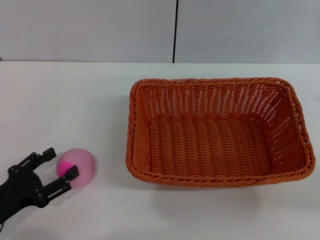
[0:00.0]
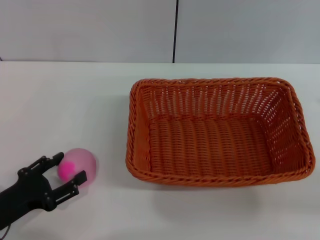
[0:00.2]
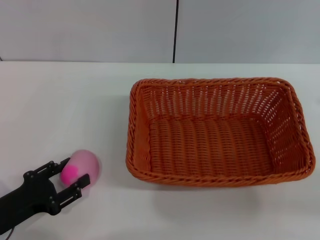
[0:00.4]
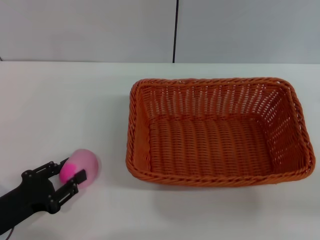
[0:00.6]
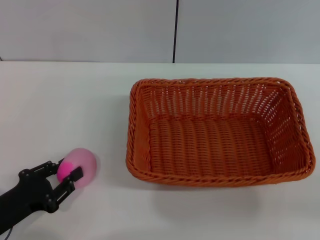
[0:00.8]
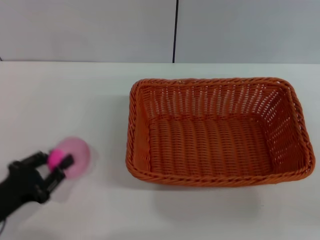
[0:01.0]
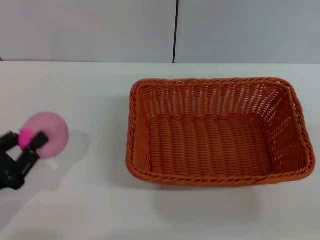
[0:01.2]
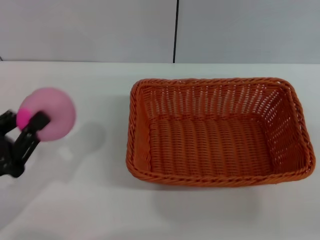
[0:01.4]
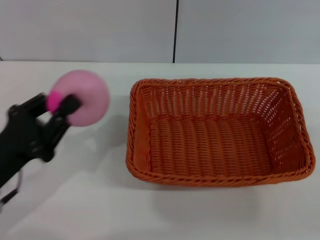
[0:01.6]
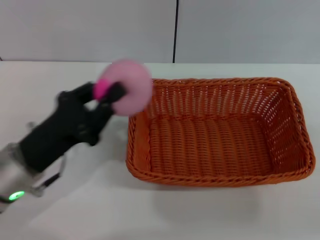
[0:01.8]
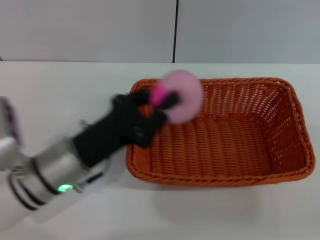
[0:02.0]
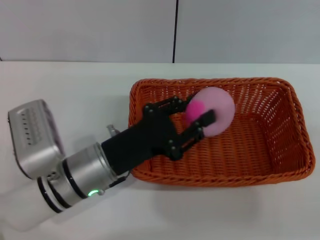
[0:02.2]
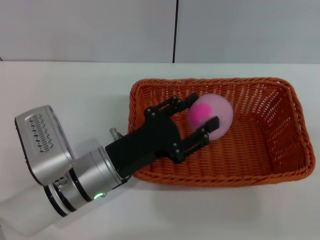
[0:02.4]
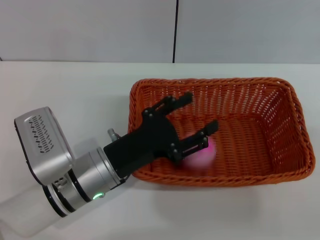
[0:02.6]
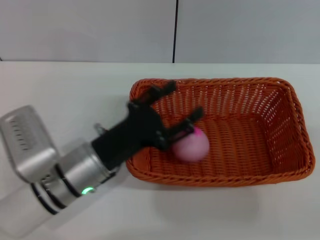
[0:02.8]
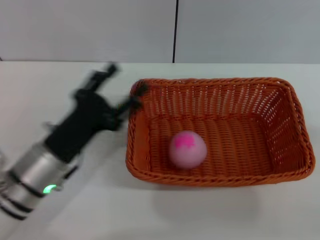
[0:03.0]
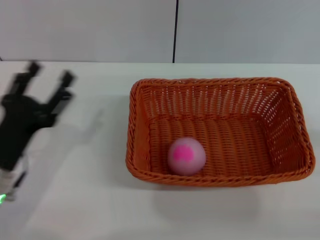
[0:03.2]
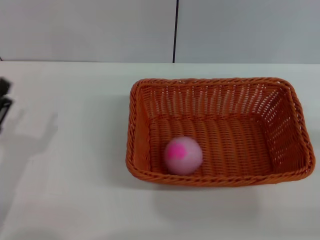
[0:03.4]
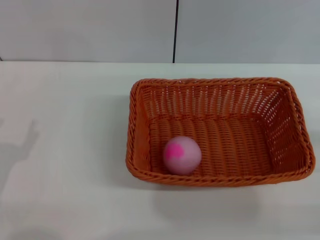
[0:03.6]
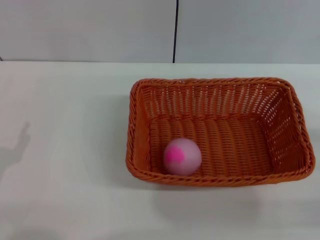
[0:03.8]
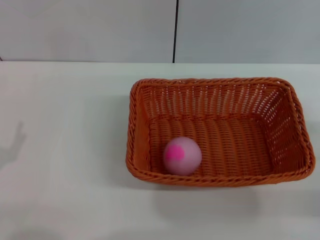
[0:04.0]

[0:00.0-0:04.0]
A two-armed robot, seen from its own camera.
Step, 0:01.2 to 0:02.8: Place the peach into the basket with the left gripper.
0:00.0 to 0:01.4: The left gripper goes about 5 cm upward, and closes up.
0:01.4 to 0:02.6: The left gripper travels to the right and forward by approximately 20 cm, and opens its fingers.
0:02.6 to 0:04.0: The right gripper is displaced downward by some 5 cm. Meanwhile the left gripper travels to the left and backward by approximately 20 cm.

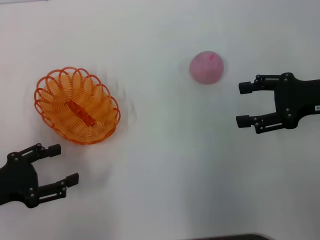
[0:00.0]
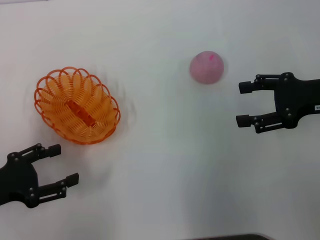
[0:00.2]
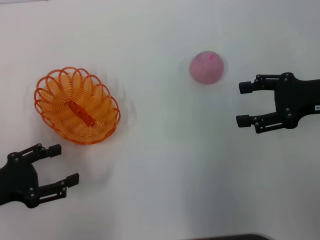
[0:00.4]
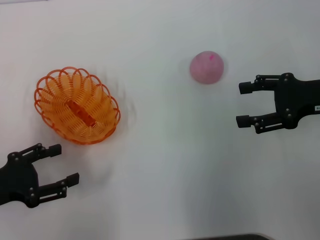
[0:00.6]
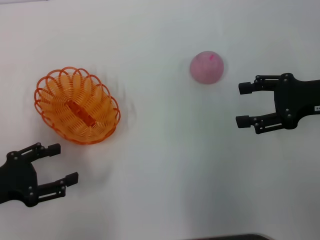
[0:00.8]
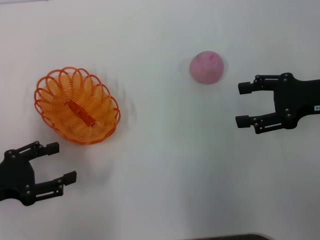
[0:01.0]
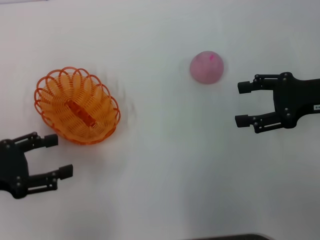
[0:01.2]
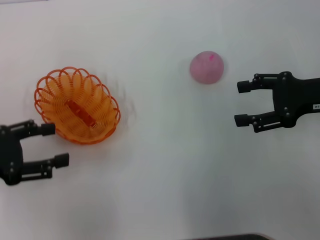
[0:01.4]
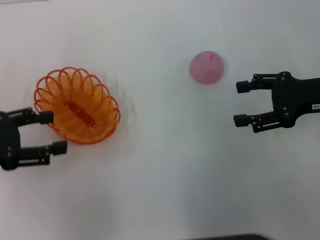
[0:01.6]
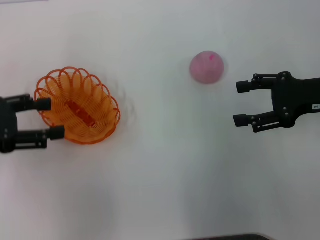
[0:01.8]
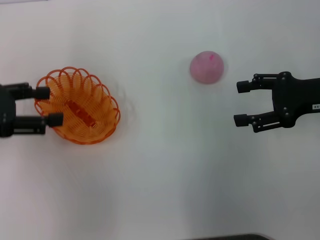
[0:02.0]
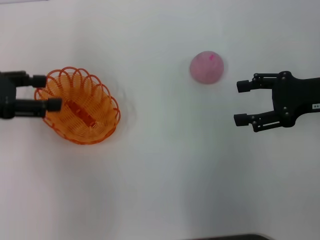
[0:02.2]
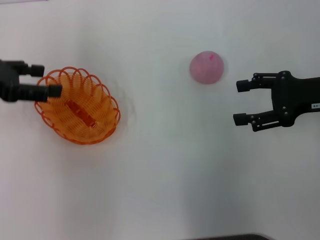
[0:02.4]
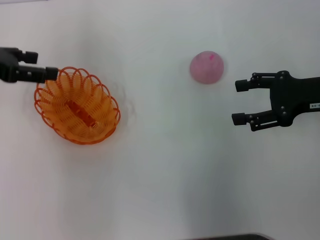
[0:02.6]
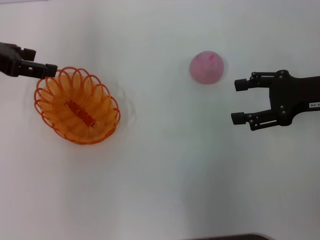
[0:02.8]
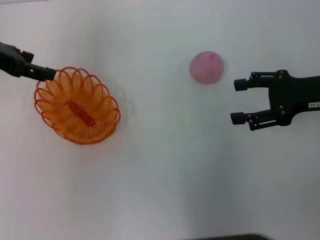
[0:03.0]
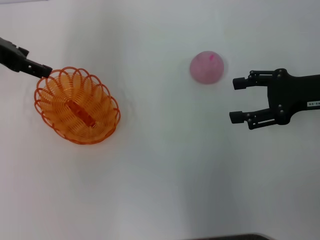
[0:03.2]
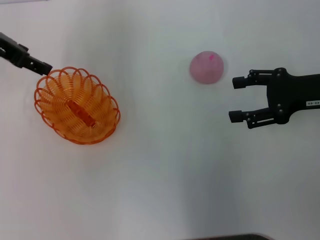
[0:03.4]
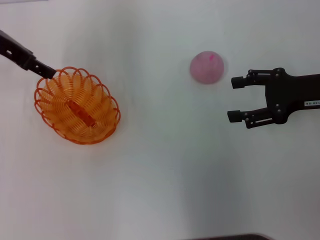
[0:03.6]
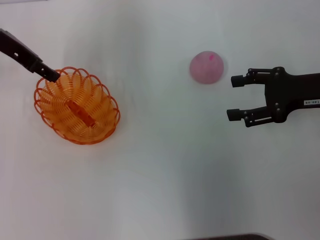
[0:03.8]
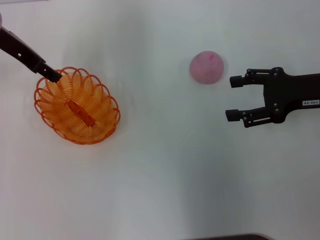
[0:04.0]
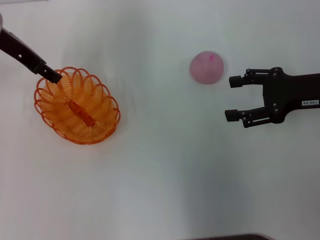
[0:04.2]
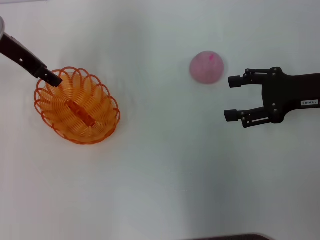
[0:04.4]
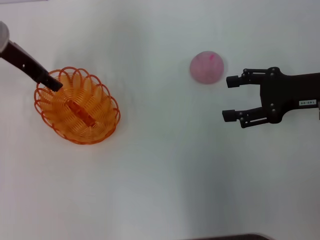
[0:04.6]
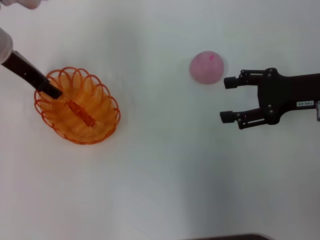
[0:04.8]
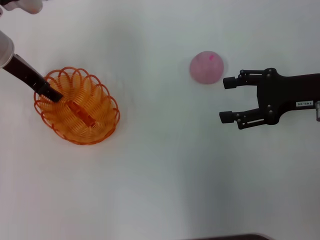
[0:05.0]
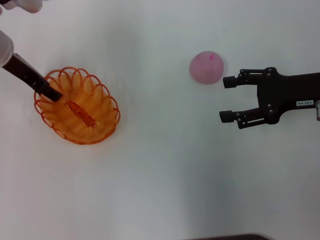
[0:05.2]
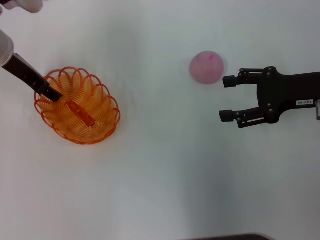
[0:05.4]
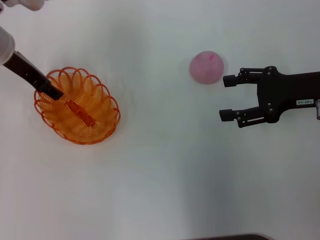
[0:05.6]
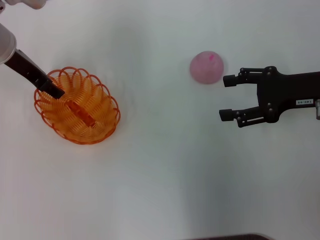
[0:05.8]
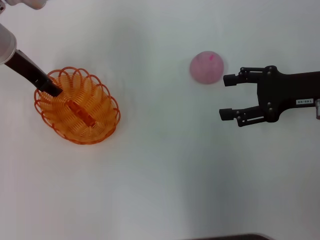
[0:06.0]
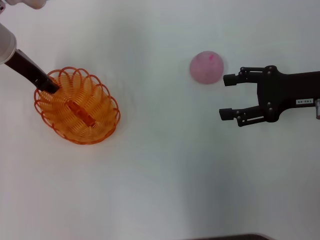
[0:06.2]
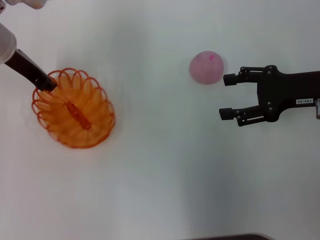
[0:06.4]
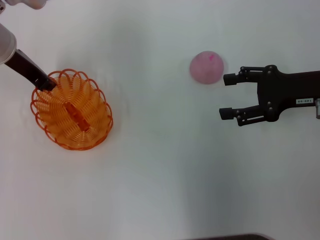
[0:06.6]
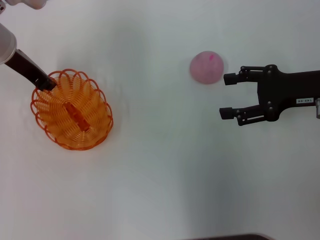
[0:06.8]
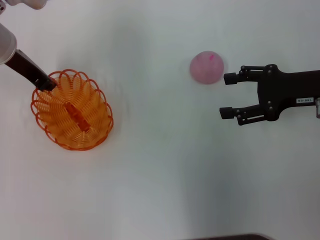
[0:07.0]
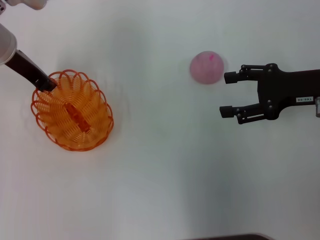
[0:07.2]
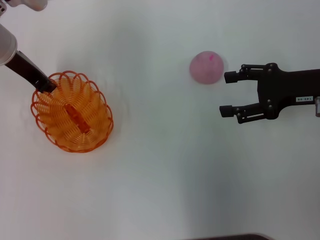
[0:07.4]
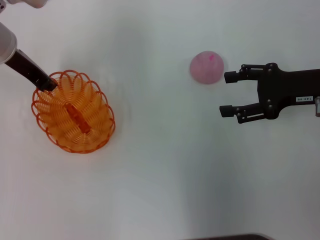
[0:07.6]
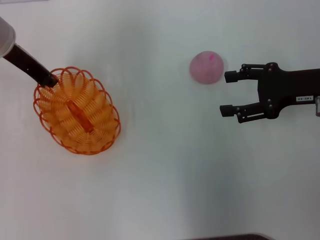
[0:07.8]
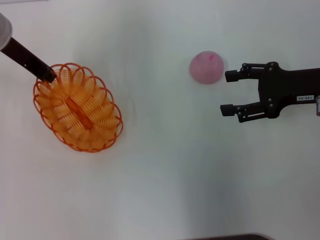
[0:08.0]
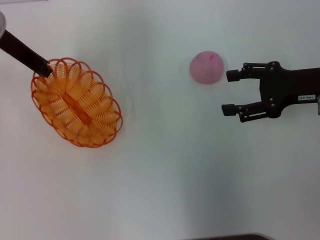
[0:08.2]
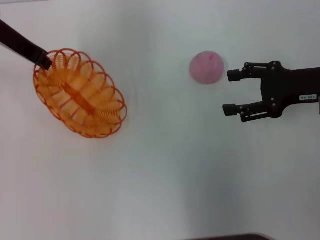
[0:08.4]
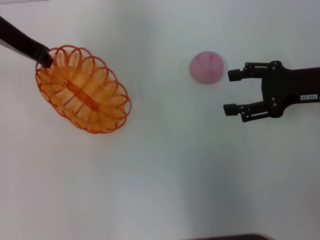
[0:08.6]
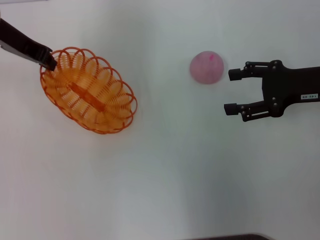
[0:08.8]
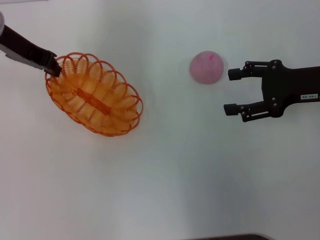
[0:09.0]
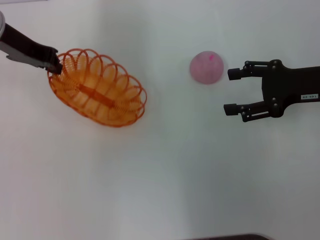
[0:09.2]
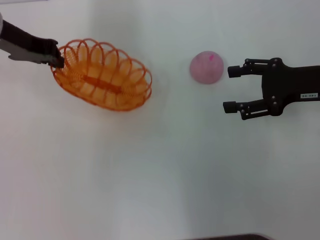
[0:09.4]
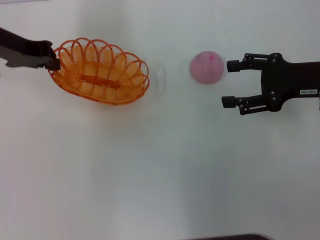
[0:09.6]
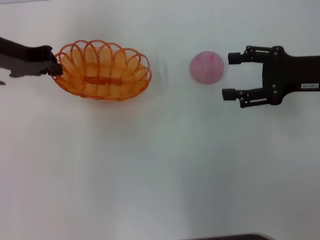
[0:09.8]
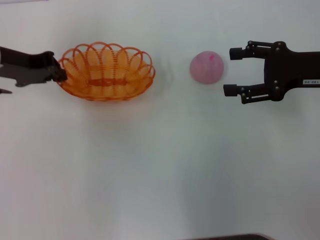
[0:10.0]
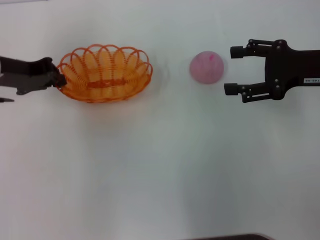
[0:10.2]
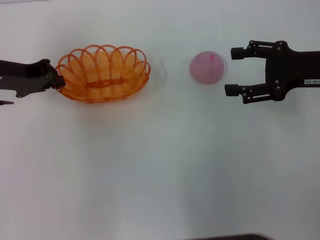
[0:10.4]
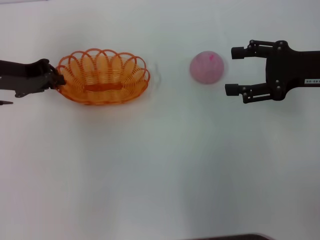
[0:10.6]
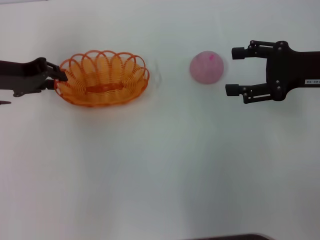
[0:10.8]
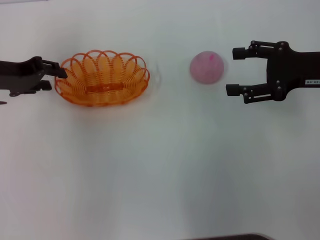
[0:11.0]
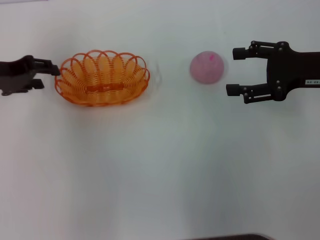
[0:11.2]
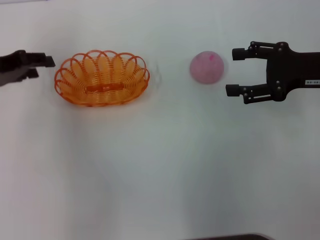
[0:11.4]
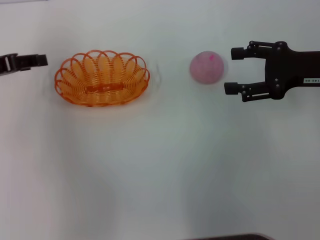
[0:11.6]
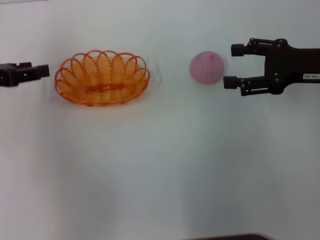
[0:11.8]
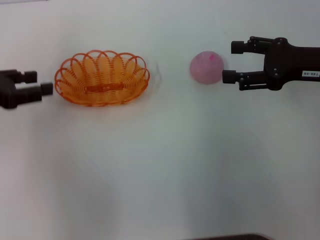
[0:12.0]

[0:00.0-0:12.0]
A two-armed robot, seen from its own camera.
Step, 0:00.0 to 0:08.6: Pick up the basket with the left gripper.
Step, 0:08.8 to 0:11.0: Place the basket in the center of view with the left gripper.
0:00.0 to 0:01.6: The left gripper is displaced upward by some 10 cm.
0:01.6 to 0:03.0: The left gripper goes about 15 cm forward and upward.
0:03.0 to 0:04.4: The left gripper goes roughly 5 cm to the right.
0:04.4 to 0:06.0: The grippers stay close to where they were, moving slightly.
0:06.0 to 0:07.6: The left gripper closes up.
0:09.0 to 0:10.4: The left gripper is displaced downward by approximately 5 cm.
0:10.4 to 0:12.0: The left gripper heads backward and to the left, covering some 10 cm, and opens up.

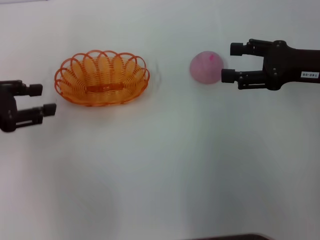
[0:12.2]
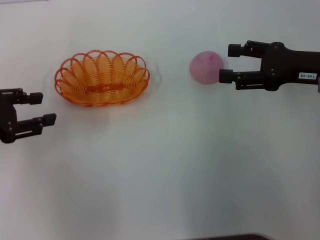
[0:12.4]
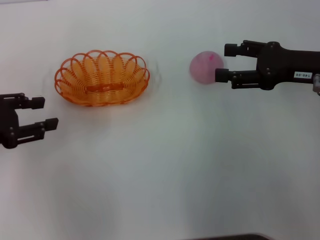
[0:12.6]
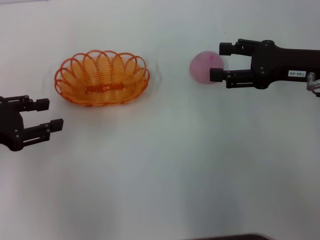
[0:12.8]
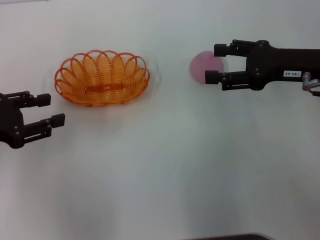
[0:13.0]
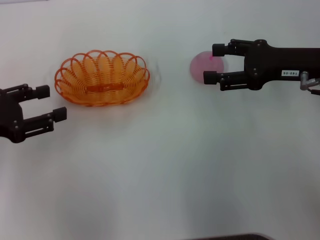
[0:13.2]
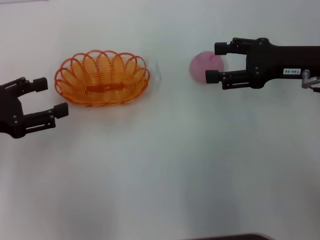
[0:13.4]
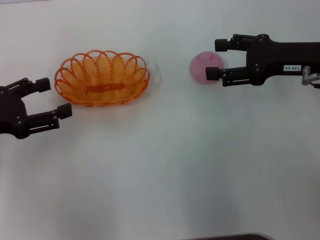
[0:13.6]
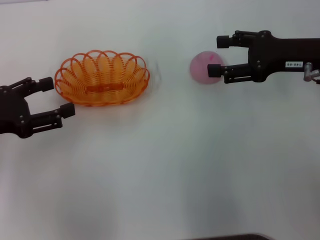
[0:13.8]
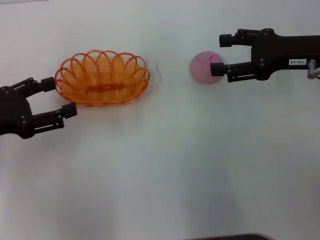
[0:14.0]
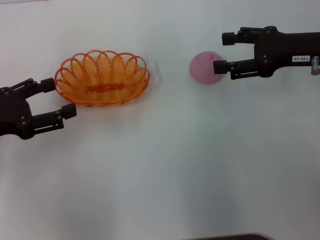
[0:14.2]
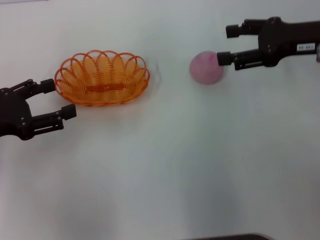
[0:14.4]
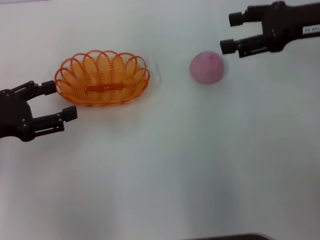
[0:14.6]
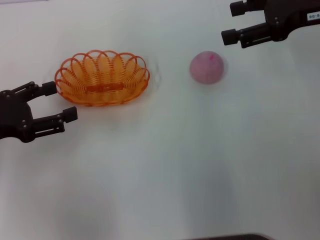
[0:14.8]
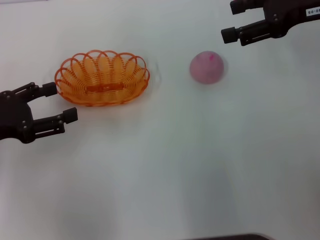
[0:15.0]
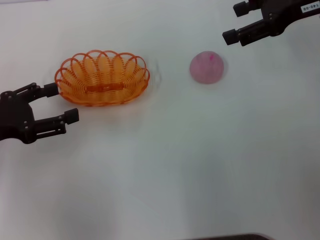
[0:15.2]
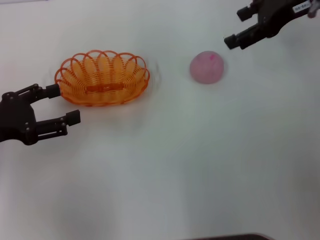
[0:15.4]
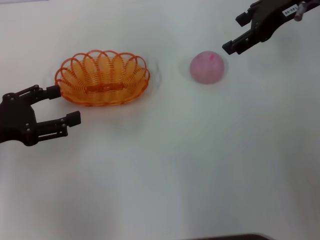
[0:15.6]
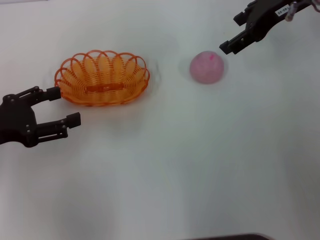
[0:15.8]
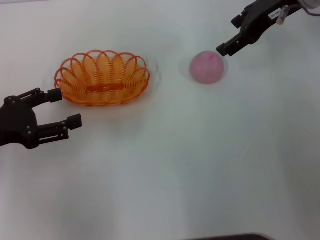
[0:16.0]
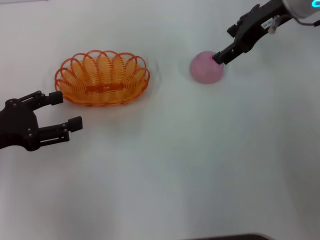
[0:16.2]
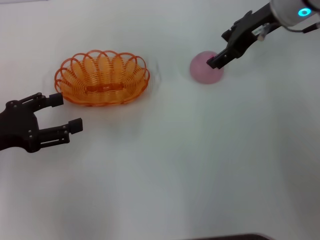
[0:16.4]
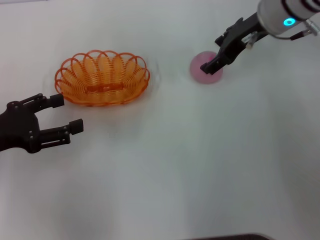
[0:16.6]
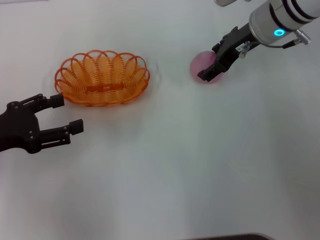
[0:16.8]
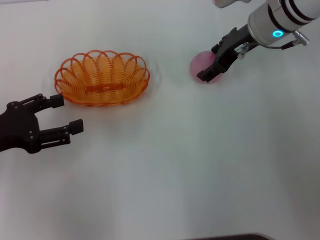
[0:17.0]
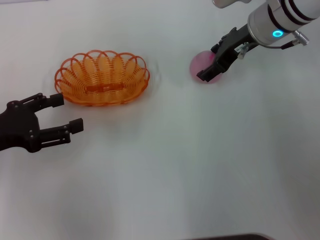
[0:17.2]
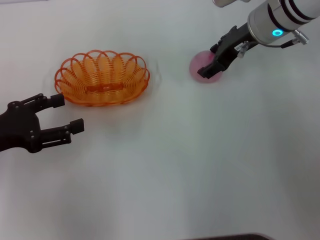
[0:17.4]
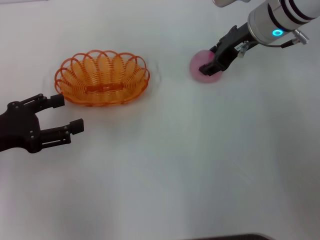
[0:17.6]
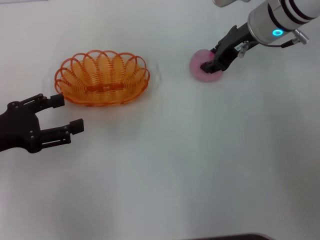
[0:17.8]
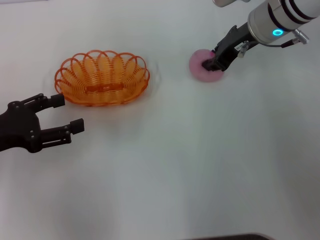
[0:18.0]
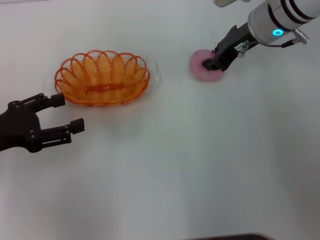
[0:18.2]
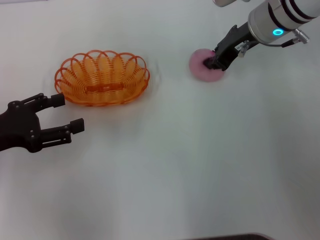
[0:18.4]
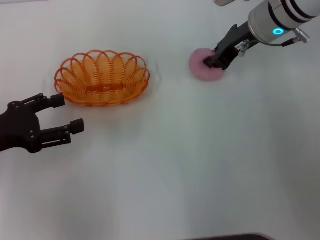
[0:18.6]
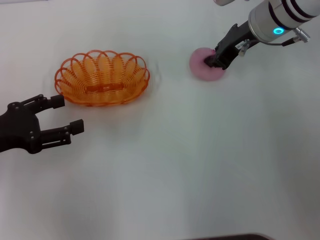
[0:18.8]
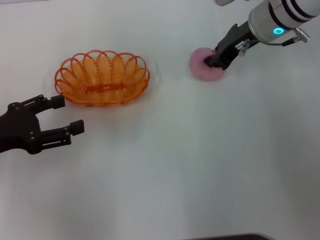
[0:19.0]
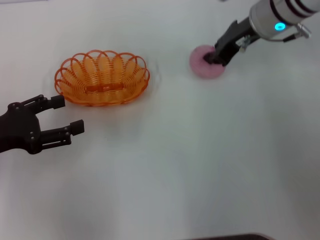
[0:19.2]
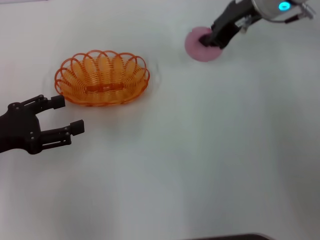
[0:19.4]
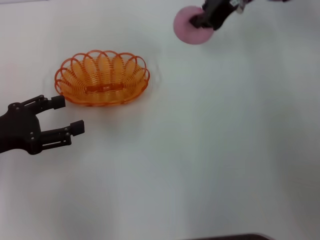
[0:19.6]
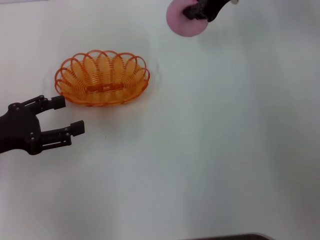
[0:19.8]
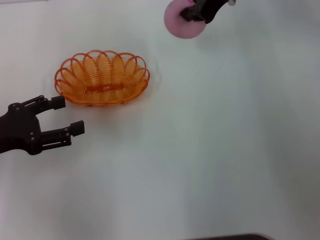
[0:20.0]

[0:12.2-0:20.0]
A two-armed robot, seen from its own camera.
Step, 0:12.2 to 0:19.6: Pick up the peach with the right gripper.
0:12.2 to 0:13.8: There are only small adjustments of the grippers.
0:13.8 to 0:15.4: The right gripper is displaced upward and forward by about 10 cm.
0:15.4 to 0:16.8: The right gripper shifts approximately 10 cm downward and to the left.
0:16.8 to 0:18.4: The right gripper closes its fingers.
0:18.4 to 0:20.0: The right gripper goes roughly 10 cm upward.
